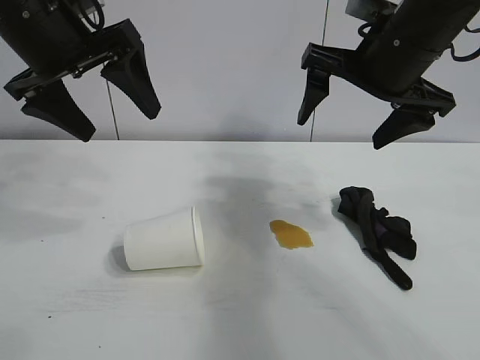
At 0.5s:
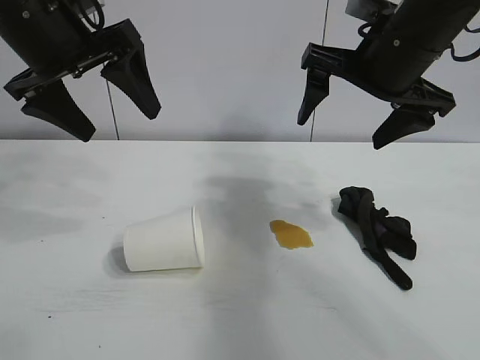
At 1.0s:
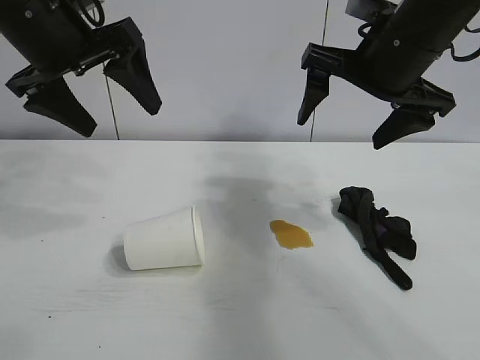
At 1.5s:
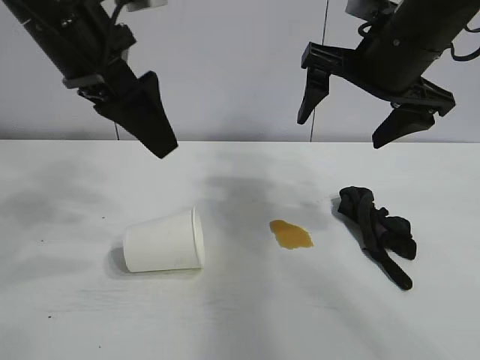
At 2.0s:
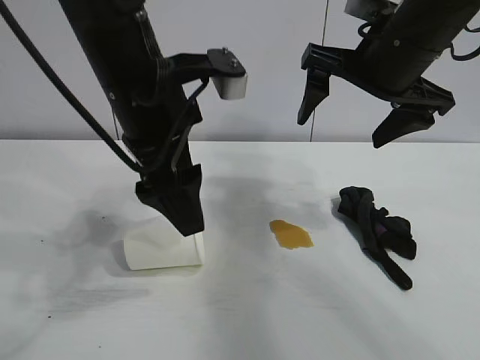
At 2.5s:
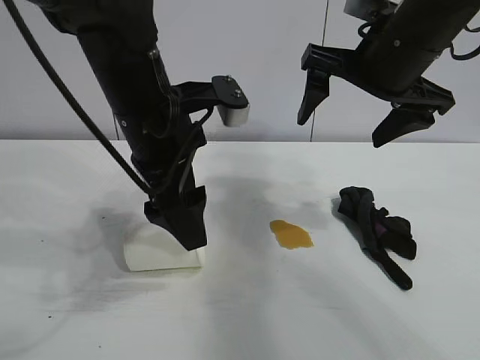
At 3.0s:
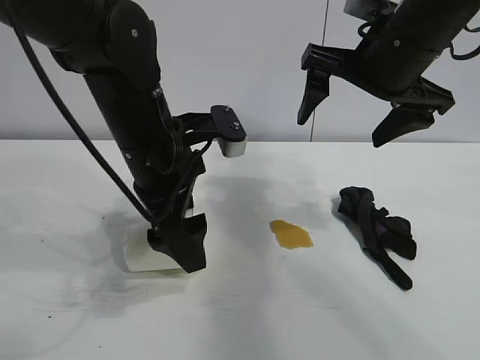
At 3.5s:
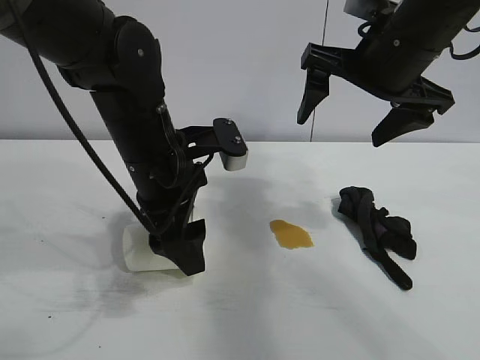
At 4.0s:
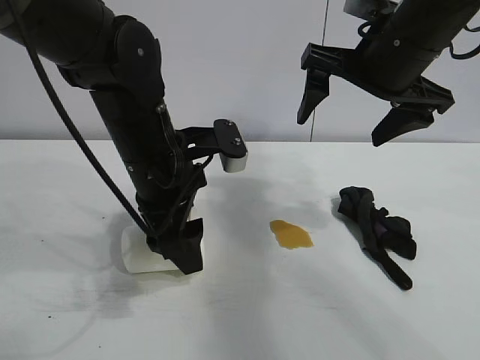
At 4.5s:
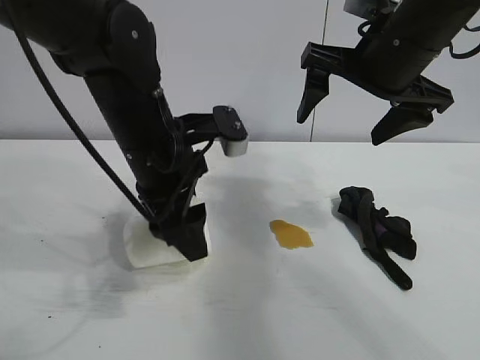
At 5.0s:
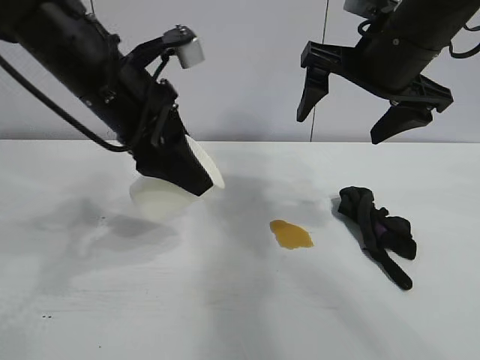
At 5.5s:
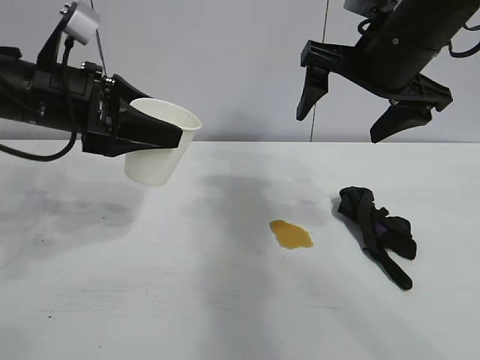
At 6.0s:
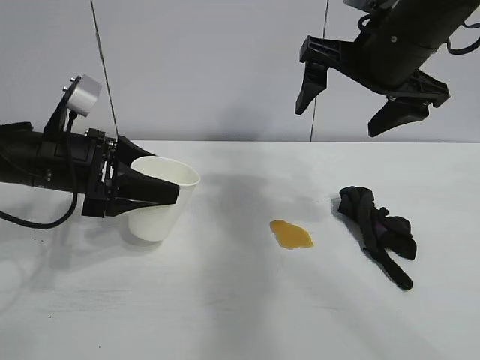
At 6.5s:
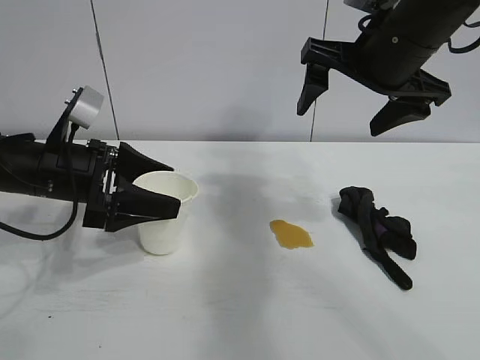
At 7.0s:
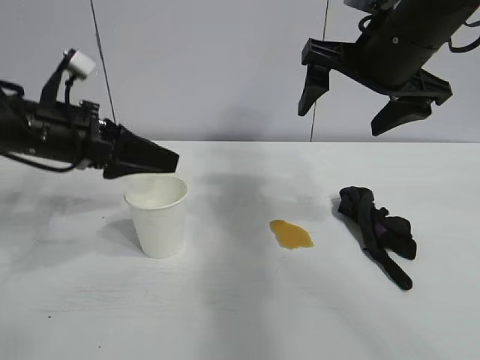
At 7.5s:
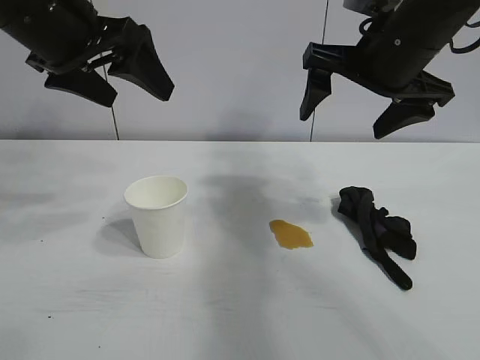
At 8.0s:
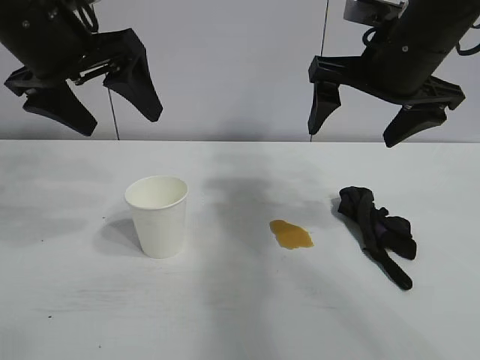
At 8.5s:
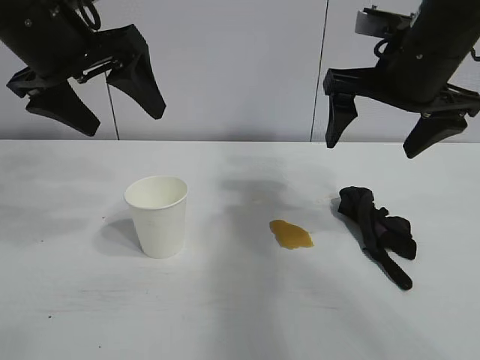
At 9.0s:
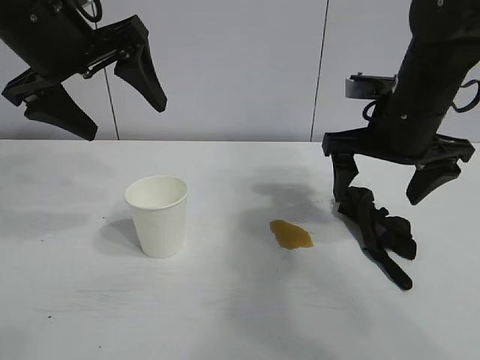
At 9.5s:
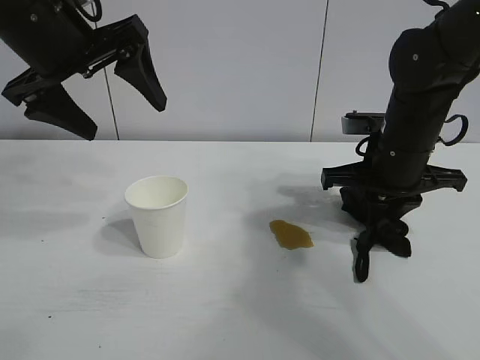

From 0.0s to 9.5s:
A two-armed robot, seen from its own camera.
Task of the whole recording: the left gripper pick up the fallen cup and place it upright, the right gripper grasp the black rag and wipe the stain on the table, the right gripper put the black rag back in its original position.
Step, from 1.5s to 3.5s: Grasp the paper cup with left gripper.
Step, from 4.0s to 6.5s: Stand the paper cup upright with left gripper.
Step, from 7.0s to 9.0s: Grasp the rag with right gripper.

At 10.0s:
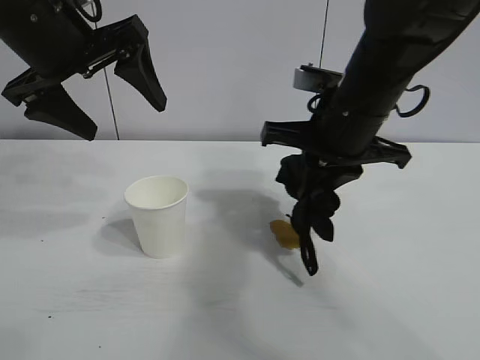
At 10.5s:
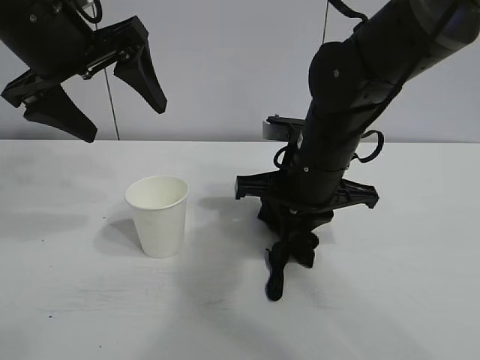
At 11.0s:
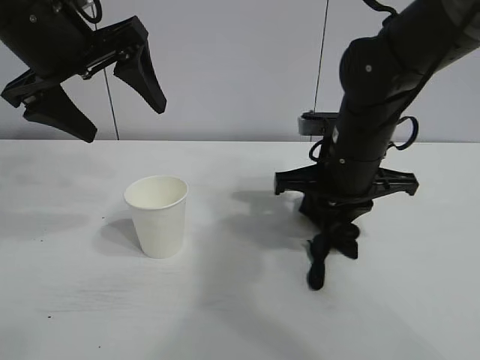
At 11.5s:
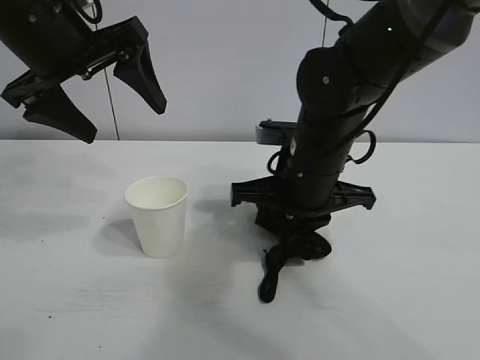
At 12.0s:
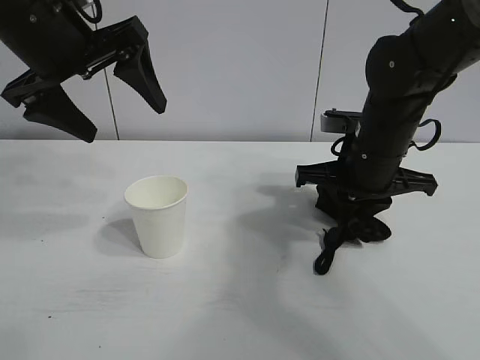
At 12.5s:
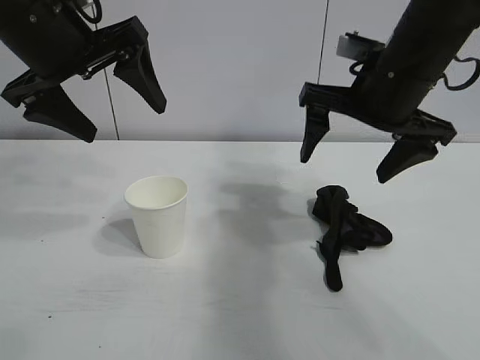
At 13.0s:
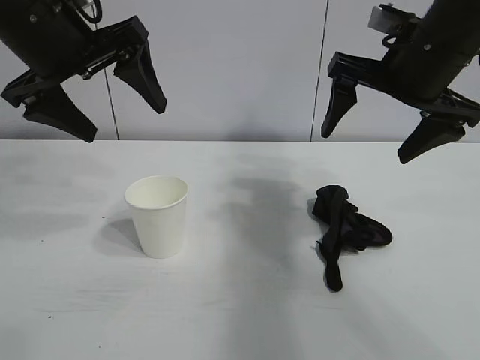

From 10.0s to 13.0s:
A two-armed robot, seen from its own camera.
Task of the whole recording: the left gripper pick up the fallen cup and place it upright, the right gripper grasp the black rag and wipe the stain on the table, the right gripper put the black rag back in its original position.
Step, from 10.0s to 12.0s: Wipe the stains off the table with the rag with right gripper.
